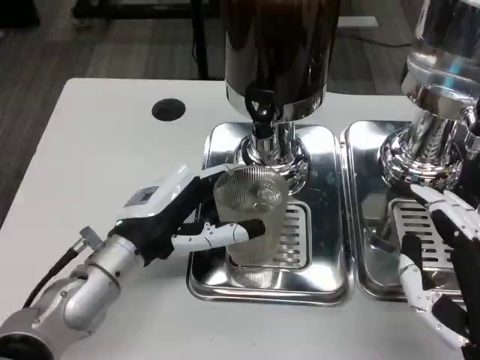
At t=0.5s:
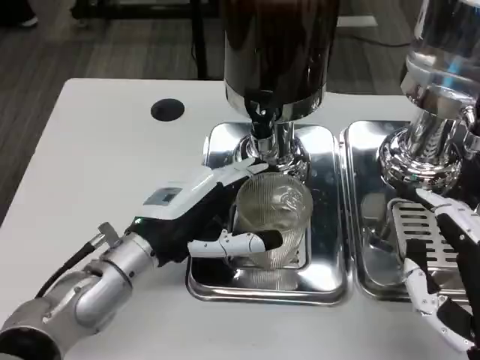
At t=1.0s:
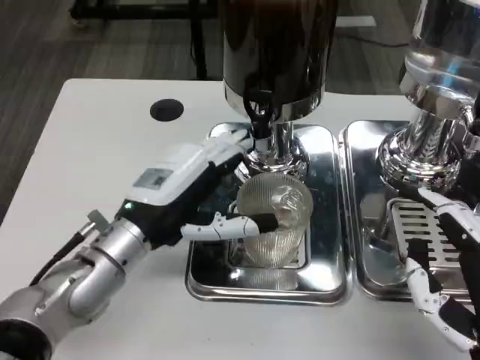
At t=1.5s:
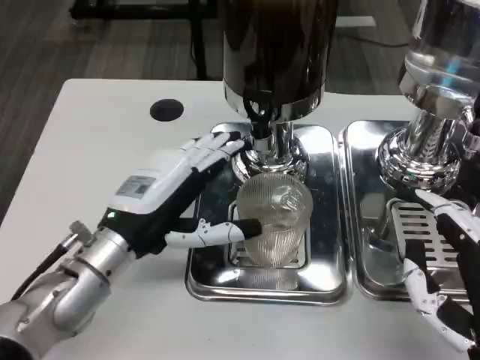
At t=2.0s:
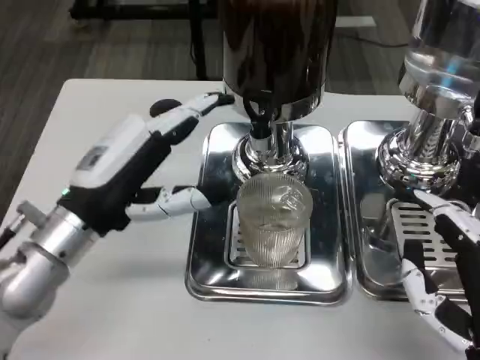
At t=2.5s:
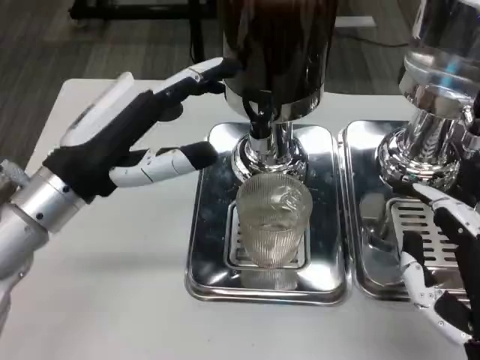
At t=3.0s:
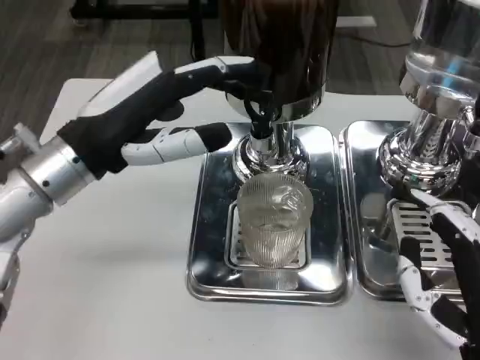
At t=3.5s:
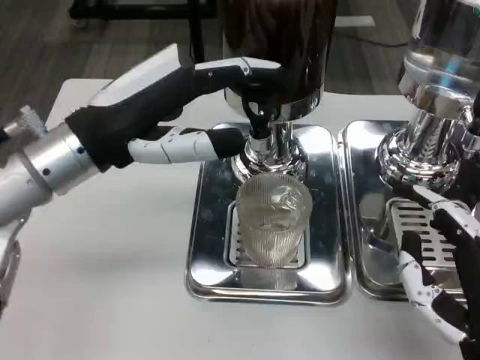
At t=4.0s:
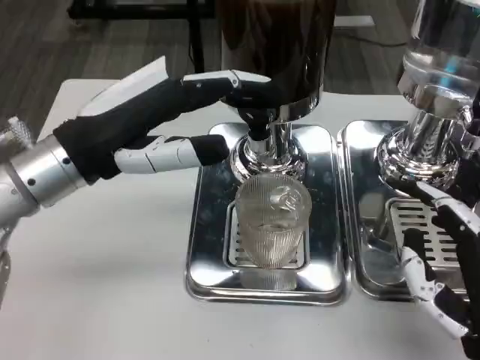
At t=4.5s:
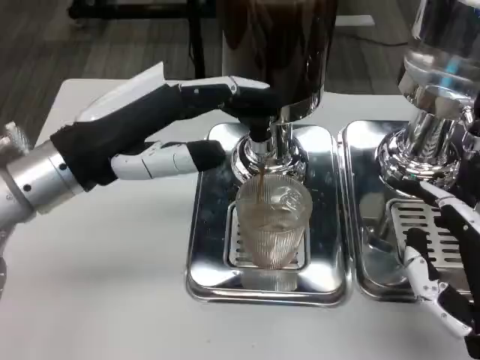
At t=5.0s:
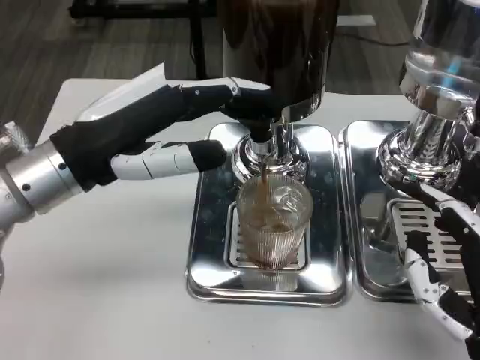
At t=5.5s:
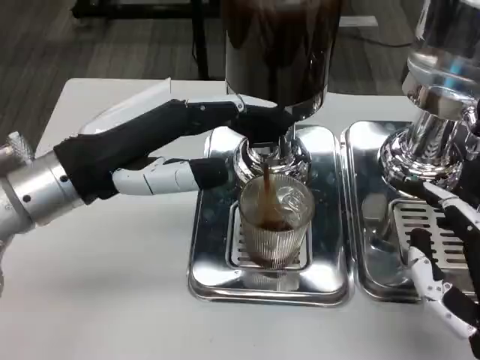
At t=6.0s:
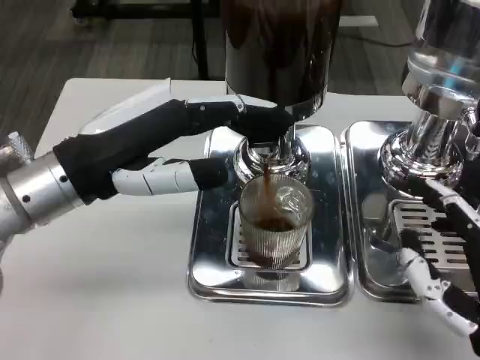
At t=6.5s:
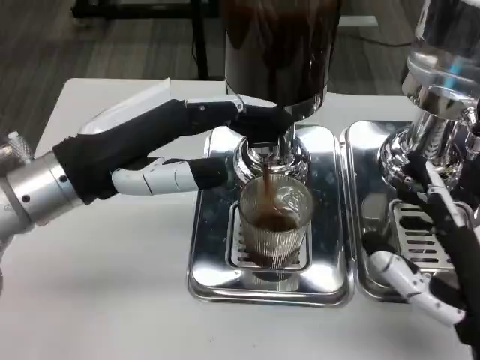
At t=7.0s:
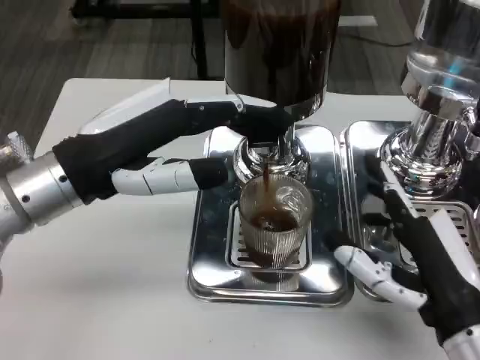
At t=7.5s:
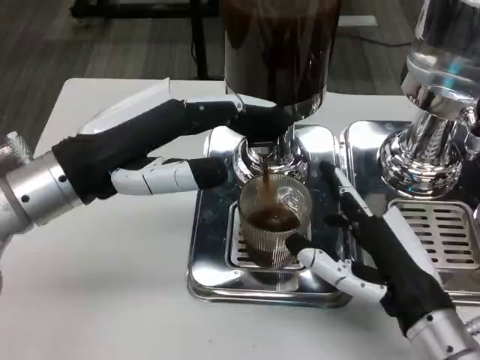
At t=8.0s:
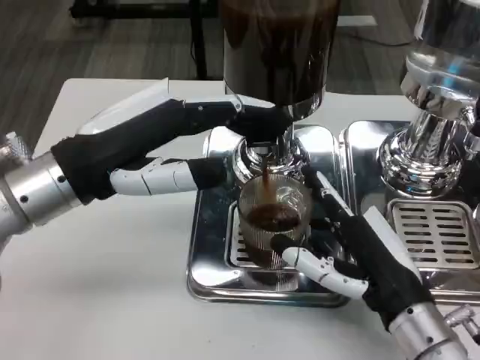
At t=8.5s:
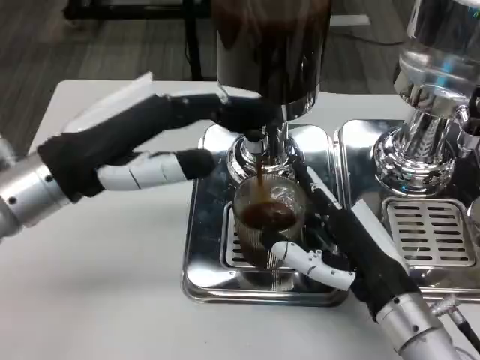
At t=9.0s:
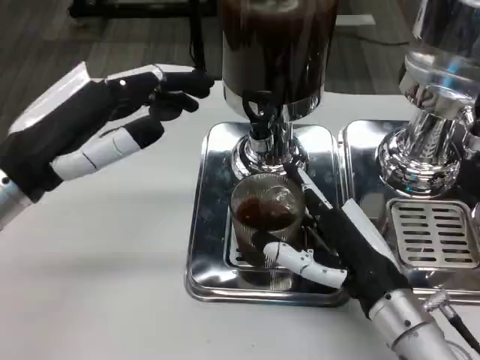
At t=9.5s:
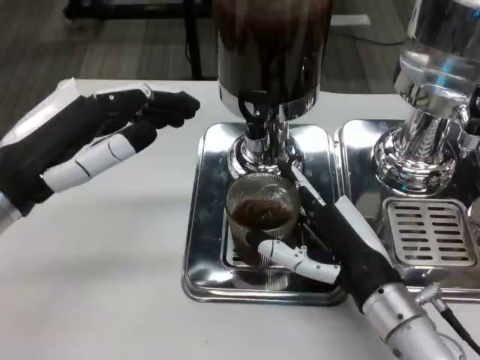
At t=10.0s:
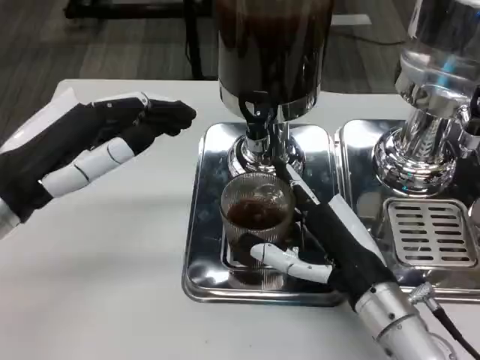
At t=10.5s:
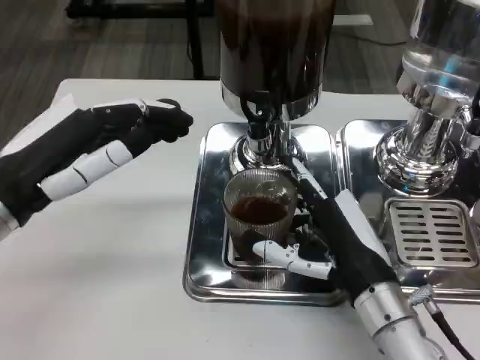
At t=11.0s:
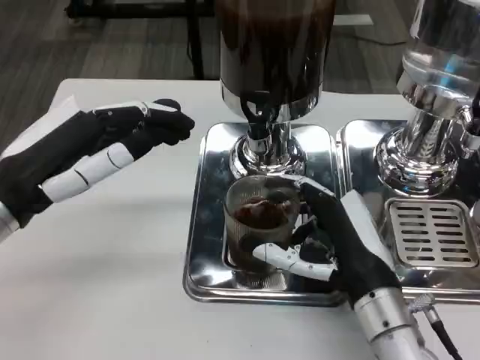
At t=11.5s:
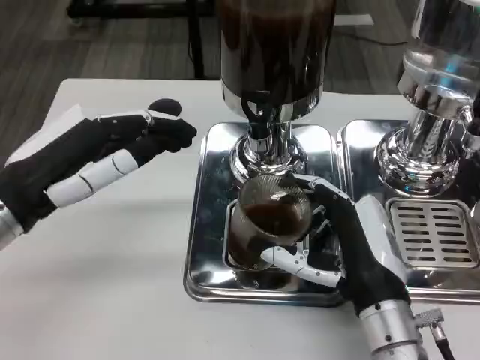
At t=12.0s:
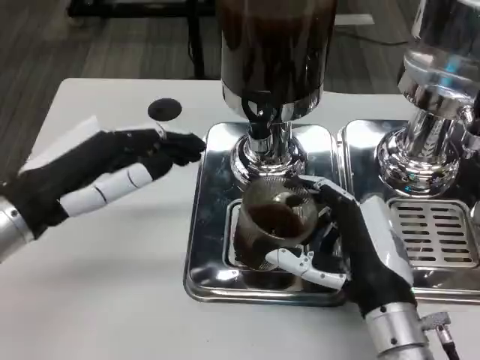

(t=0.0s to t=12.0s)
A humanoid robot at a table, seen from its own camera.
Task of the whole recording: Grasp the cup under the faucet to collect the drink, then remove the cup.
t=0.0s - t=2.0s: The left hand travels upward by about 5 cm.
t=2.0s - t=4.0s: The left hand shifts roughly 10 cm upward.
t=6.0s - t=8.0s: The right hand moves forward, roughly 5 cm.
t=8.0s - t=10.0s: The left hand ends up some 5 cm from where it was.

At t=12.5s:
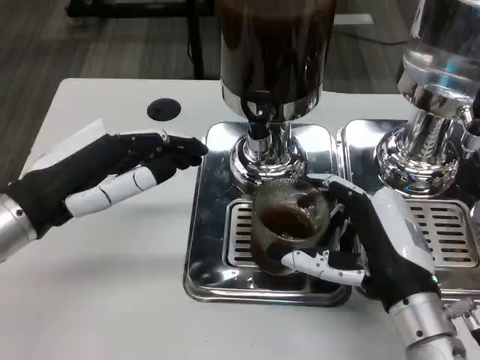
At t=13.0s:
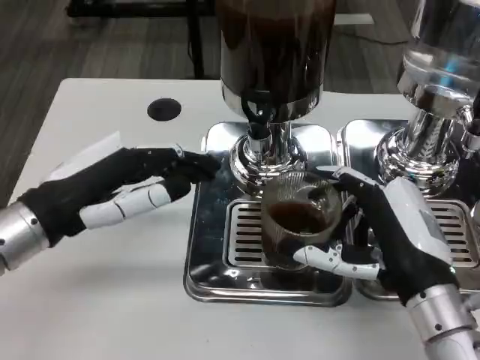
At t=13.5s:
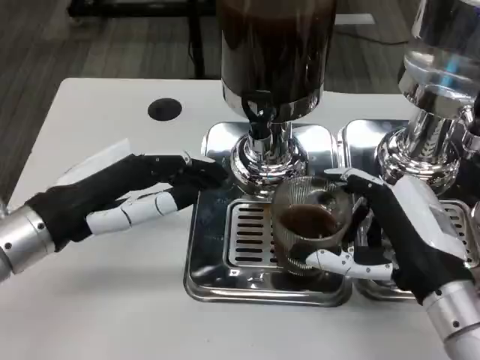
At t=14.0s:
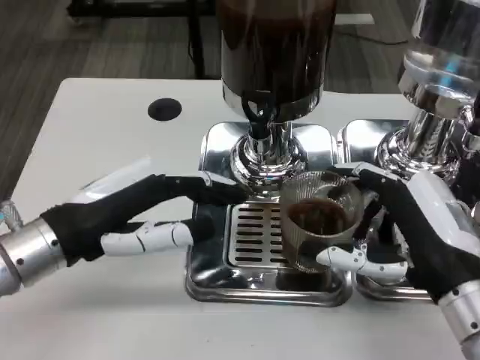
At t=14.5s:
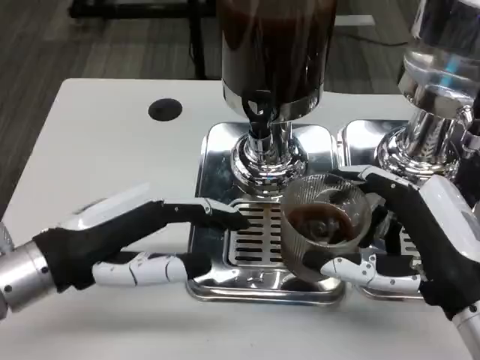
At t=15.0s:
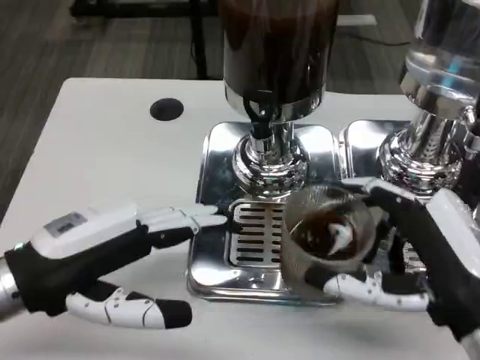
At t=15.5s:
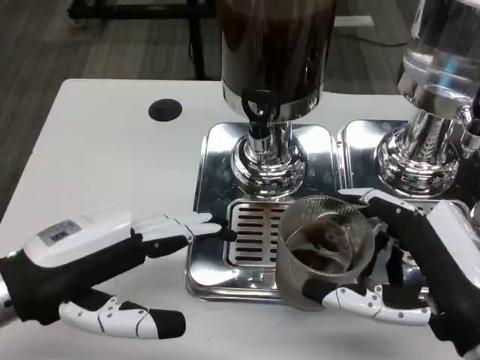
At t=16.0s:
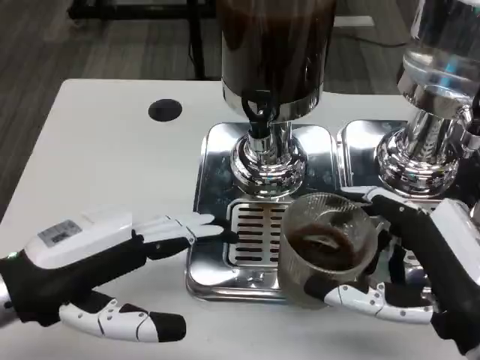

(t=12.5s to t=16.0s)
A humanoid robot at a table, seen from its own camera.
Task of the whole recording: Grasp the cup under the faucet to collect the drink, then remove the cup.
t=12.5s - t=14.5s: The right hand moves upward, about 5 cm.

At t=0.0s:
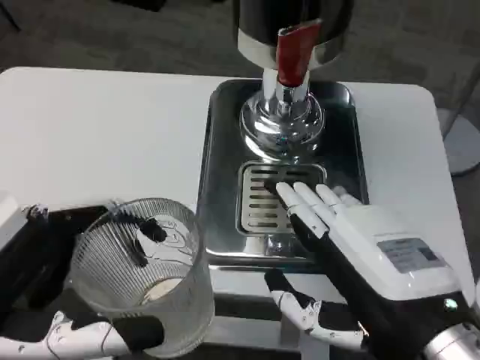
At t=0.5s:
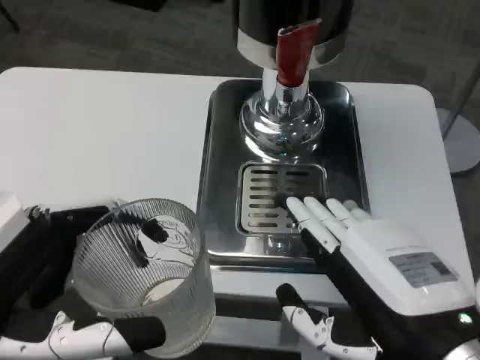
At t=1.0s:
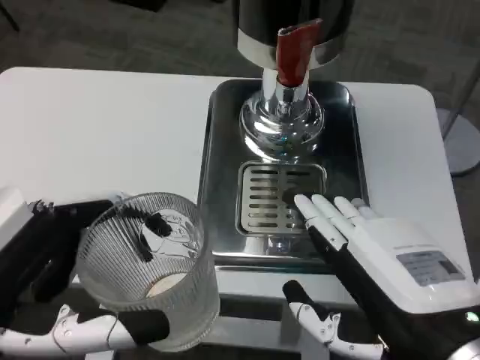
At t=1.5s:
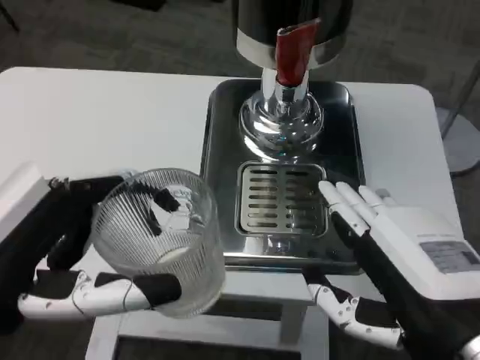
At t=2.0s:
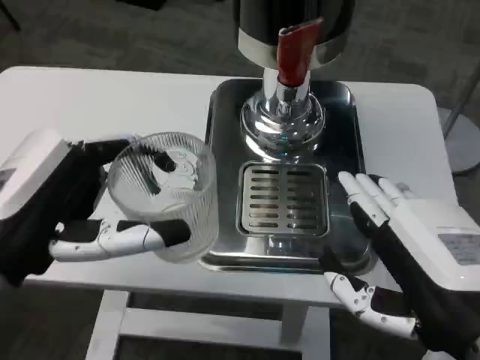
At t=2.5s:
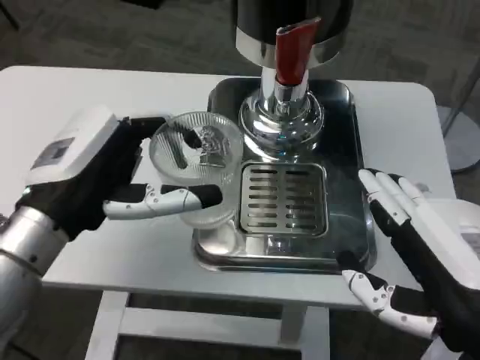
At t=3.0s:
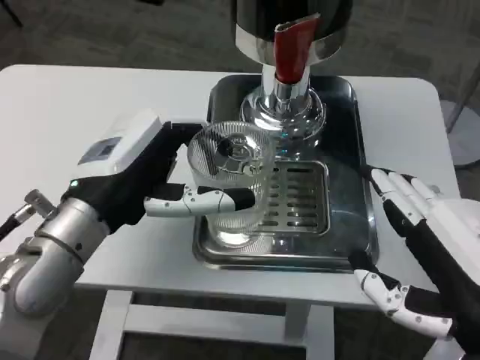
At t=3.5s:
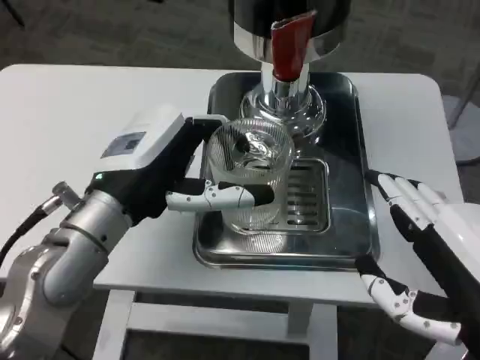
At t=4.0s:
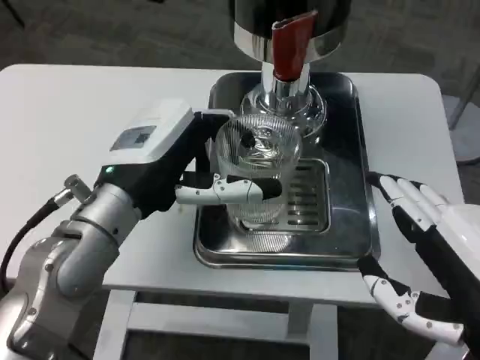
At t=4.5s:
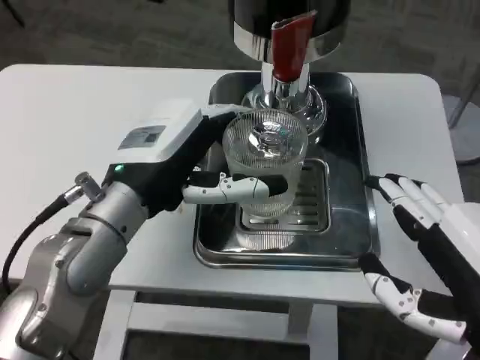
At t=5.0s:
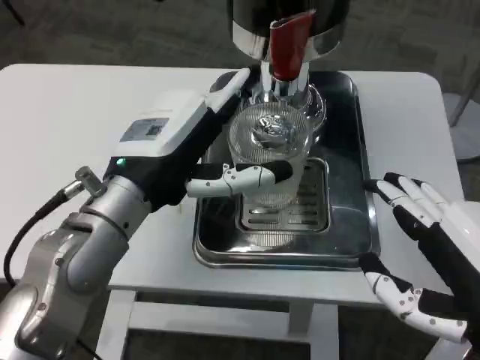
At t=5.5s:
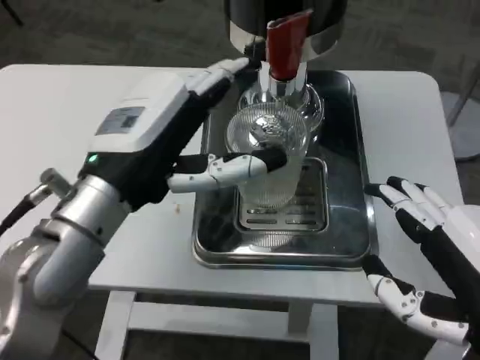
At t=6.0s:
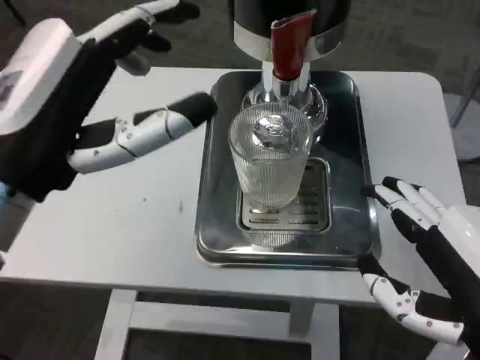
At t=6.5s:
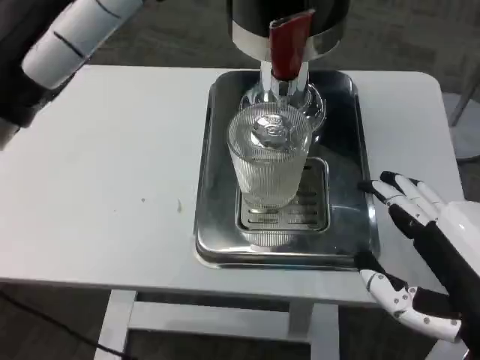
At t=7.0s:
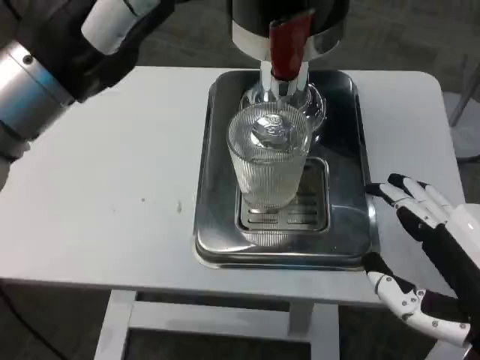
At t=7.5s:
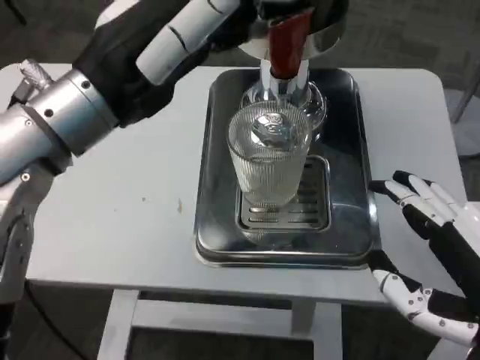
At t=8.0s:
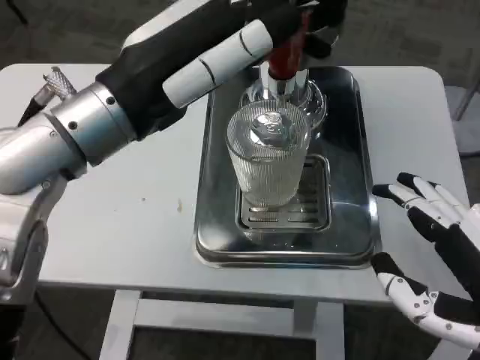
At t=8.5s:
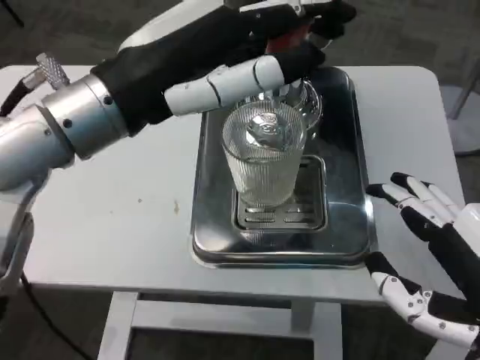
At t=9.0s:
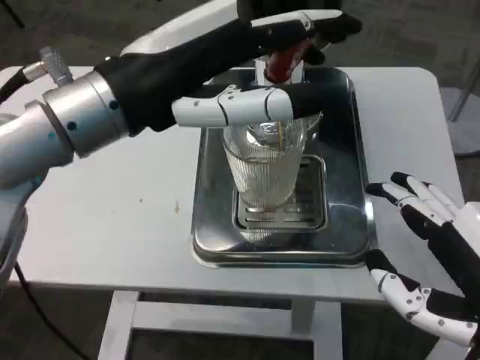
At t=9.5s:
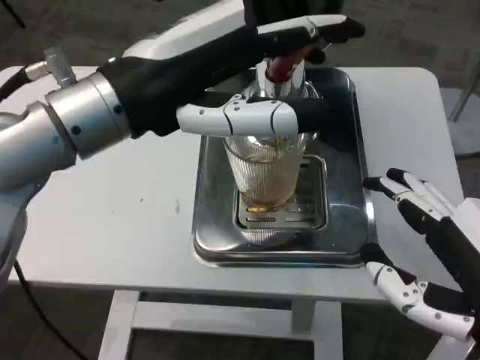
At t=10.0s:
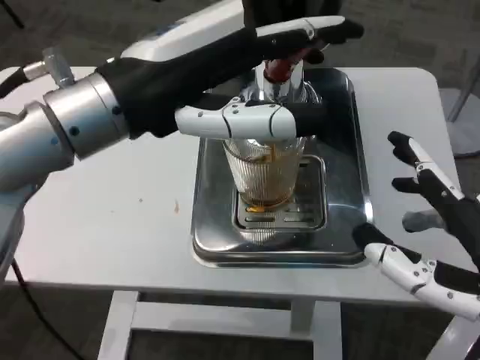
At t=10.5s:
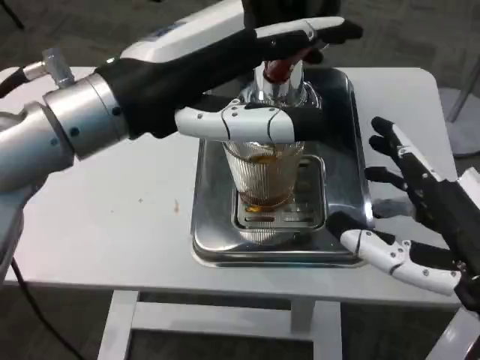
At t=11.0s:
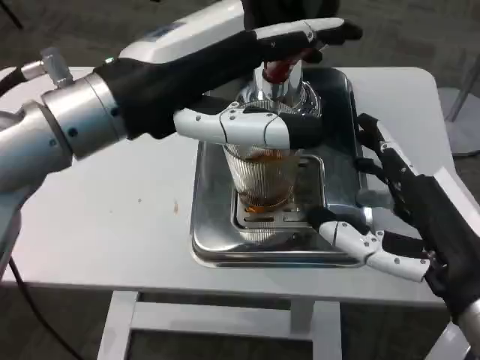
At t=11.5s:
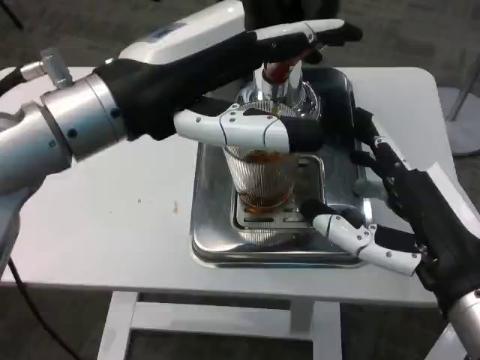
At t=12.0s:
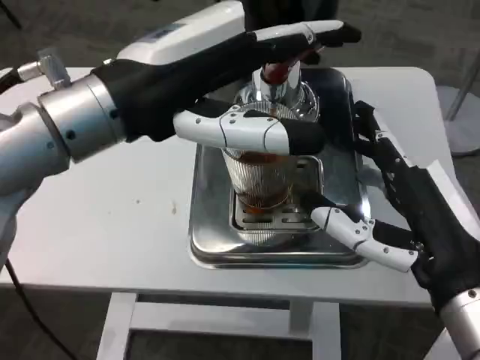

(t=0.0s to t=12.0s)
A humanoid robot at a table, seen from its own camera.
Task of the whole recording: Grasp the cup under the faucet to collect the drink, then remove the cup.
t=0.0s - t=2.0s: The left hand travels forward by approximately 10 cm.
t=2.0s - t=4.0s: The left hand is displaced forward and to the right by approximately 10 cm.
t=4.0s - t=6.0s: The left hand goes approximately 10 cm backward and upward.
t=6.0s - t=8.0s: The left hand heads forward, covering approximately 5 cm.
t=10.0s - t=12.0s: The right hand moves forward, roughly 5 cm.
